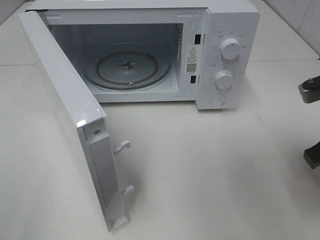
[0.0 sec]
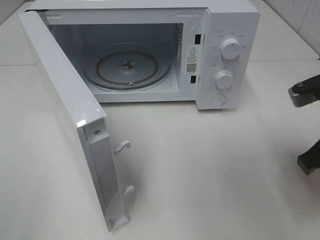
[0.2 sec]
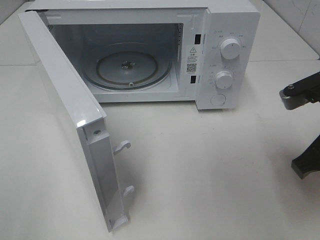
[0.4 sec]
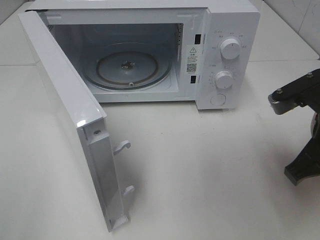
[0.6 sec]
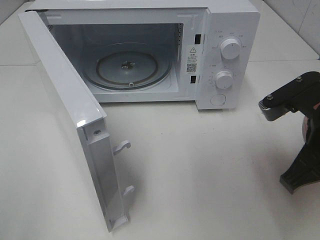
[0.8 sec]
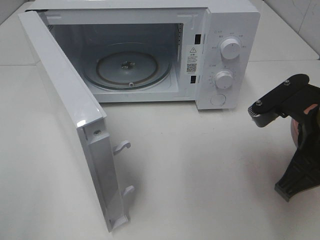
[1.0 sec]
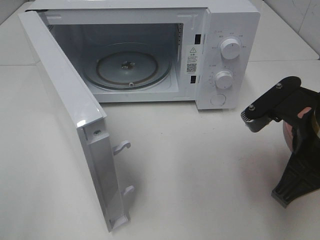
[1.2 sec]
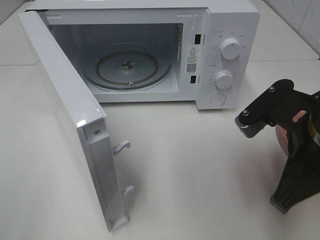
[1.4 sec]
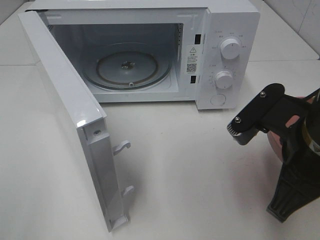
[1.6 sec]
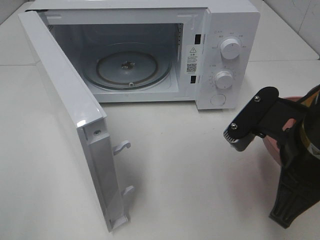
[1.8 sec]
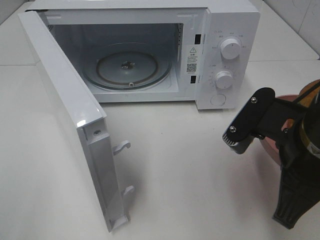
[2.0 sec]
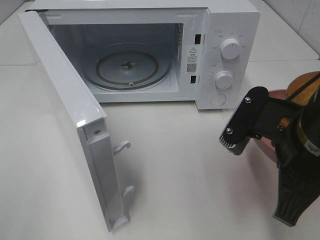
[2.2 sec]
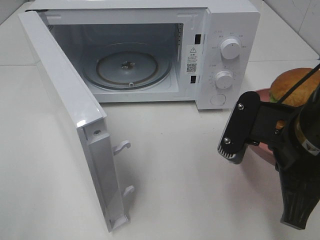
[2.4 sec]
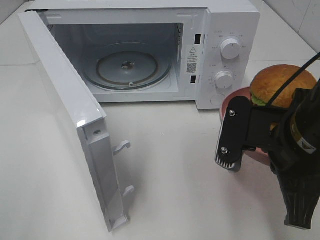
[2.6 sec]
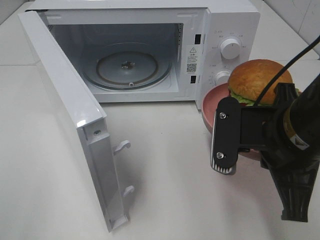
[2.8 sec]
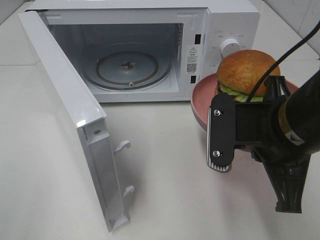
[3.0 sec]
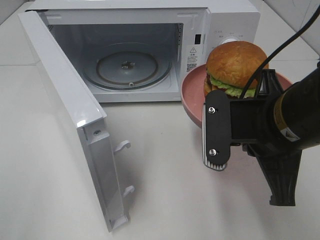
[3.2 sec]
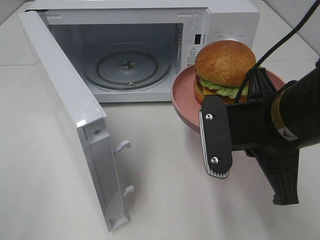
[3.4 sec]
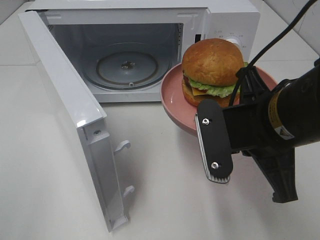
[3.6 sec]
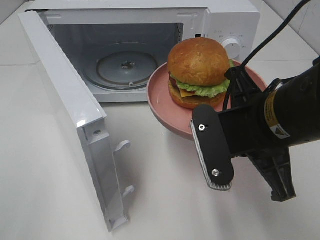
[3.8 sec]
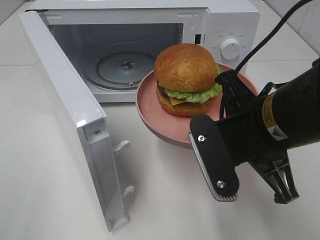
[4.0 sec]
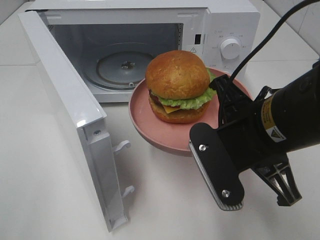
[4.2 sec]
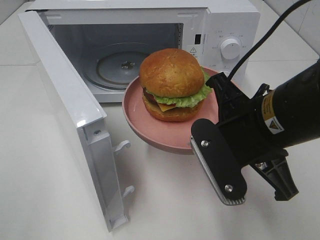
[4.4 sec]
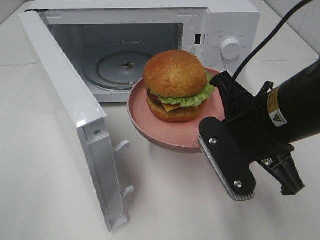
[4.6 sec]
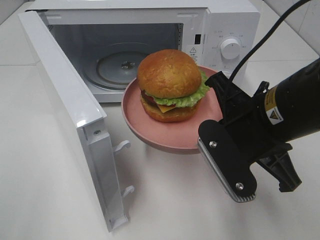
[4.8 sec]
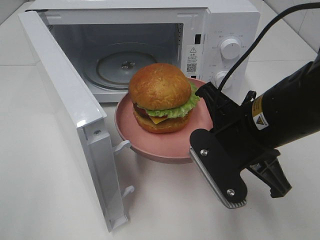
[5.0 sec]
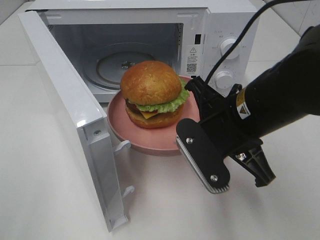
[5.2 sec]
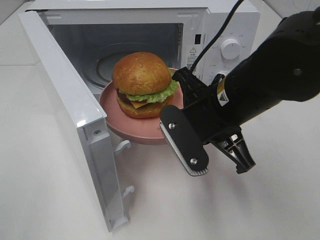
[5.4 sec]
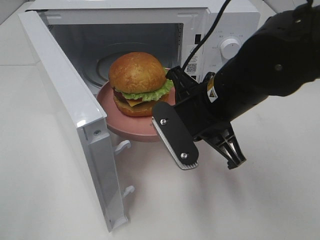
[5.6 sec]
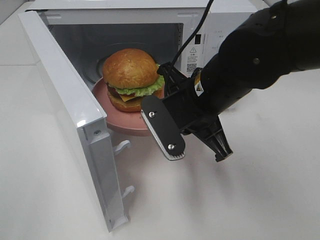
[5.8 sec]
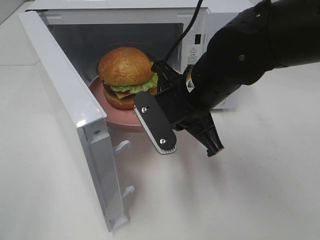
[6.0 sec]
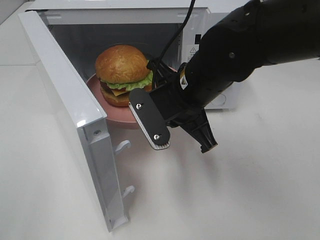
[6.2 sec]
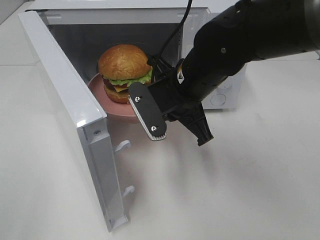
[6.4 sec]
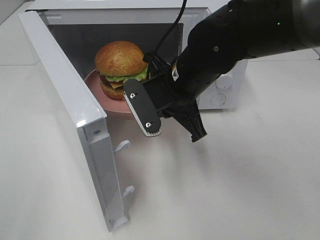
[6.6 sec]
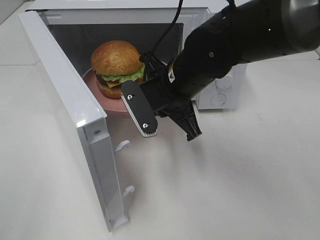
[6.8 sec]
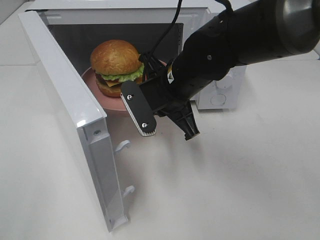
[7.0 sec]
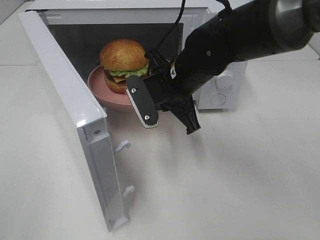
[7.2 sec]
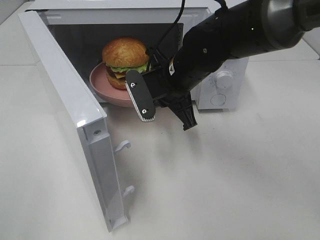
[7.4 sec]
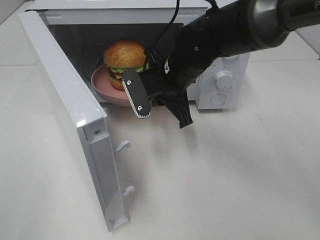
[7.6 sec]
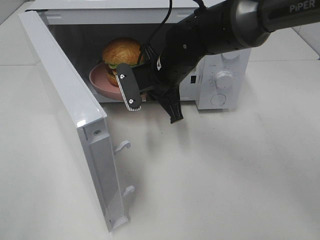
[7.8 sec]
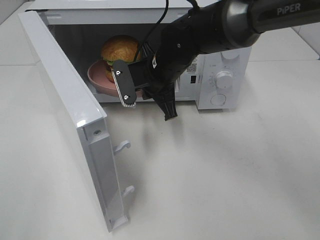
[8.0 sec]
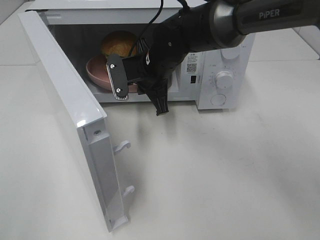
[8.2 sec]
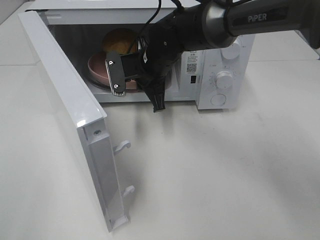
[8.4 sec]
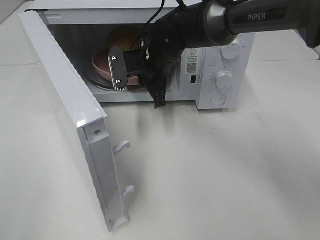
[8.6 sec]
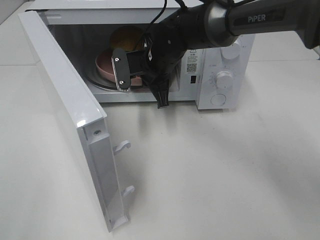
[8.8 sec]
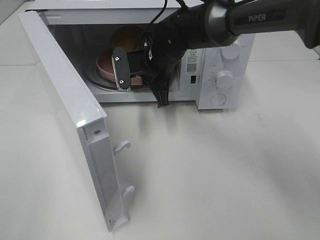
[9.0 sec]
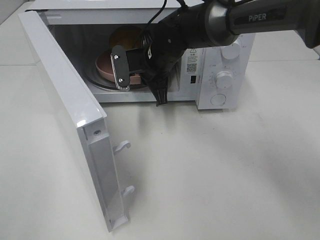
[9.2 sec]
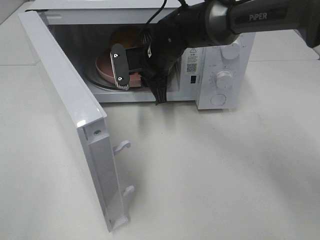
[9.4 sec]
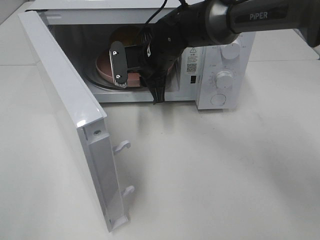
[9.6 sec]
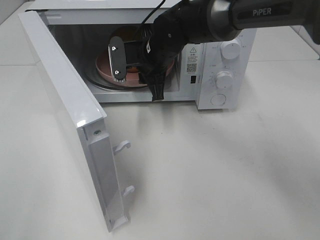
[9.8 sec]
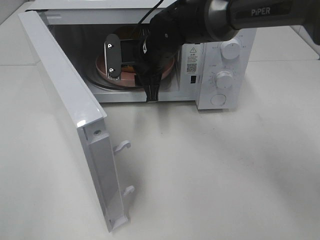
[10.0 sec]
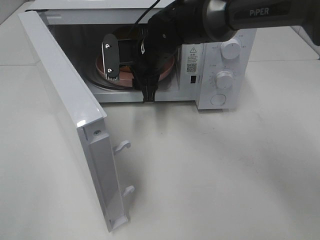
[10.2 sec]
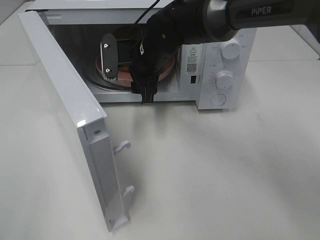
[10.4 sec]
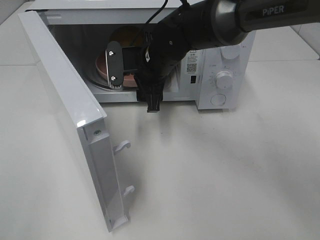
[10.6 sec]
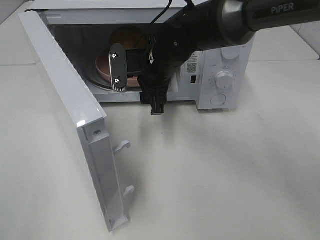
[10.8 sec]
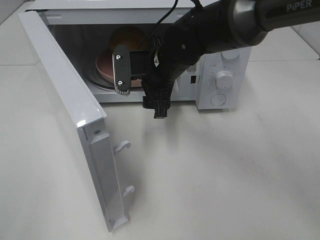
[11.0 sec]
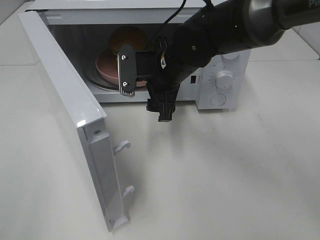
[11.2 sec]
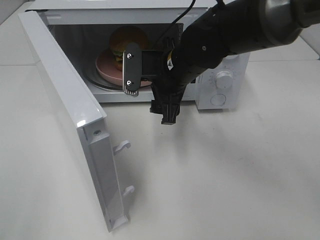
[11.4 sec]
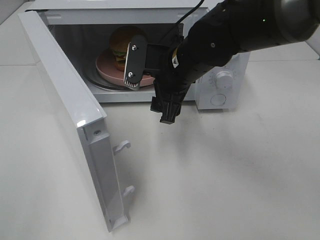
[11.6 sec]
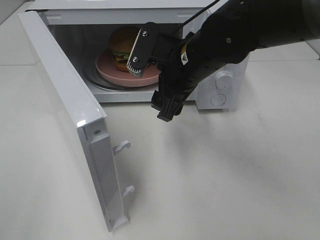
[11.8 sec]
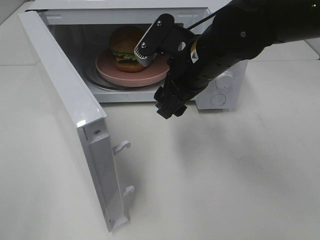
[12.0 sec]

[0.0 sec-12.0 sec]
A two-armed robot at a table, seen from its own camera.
Task of the whole recording: Heat the burger.
Step, 0.0 sec to 9.0 sec: Right hand: place the plate in the microwave.
0.0 sec to 1.6 sec: The right gripper moves to the left, about 10 cm.
4.4 sec to 6.0 sec: The right gripper goes about 10 cm forward and to the left.
6.0 sec to 7.6 sec: The right gripper is displaced forward by about 10 cm.
7.6 sec to 9.0 sec: The right gripper heads forward, covering approximately 5 cm.
9.0 sec to 10.4 sec: The right gripper opens up.
10.4 sec to 12.0 sec: The right gripper is displaced backward and to the right by some 10 cm.

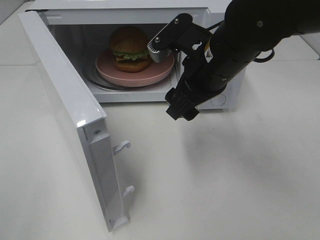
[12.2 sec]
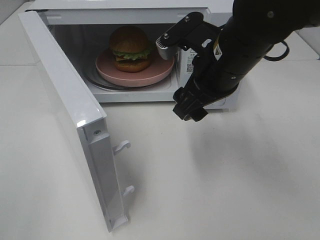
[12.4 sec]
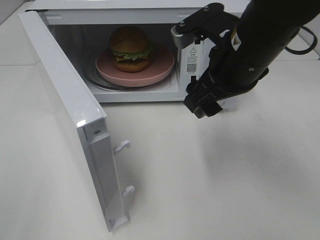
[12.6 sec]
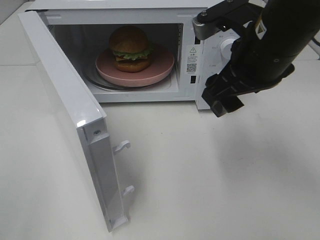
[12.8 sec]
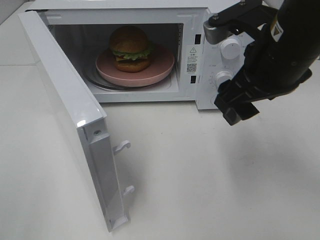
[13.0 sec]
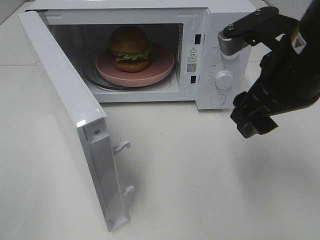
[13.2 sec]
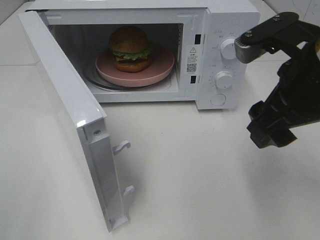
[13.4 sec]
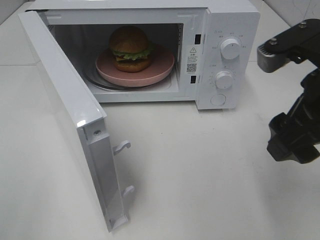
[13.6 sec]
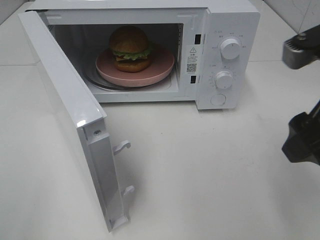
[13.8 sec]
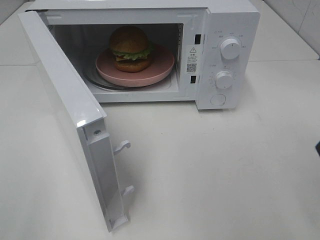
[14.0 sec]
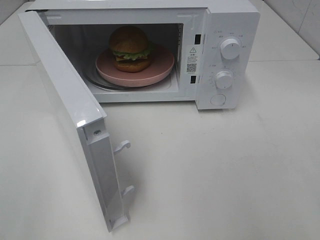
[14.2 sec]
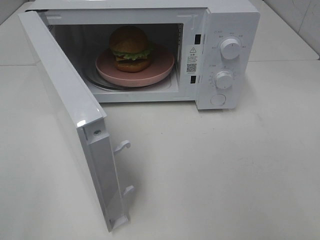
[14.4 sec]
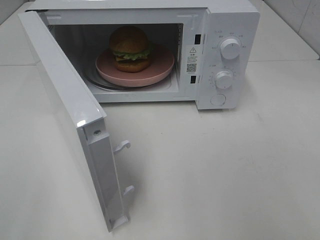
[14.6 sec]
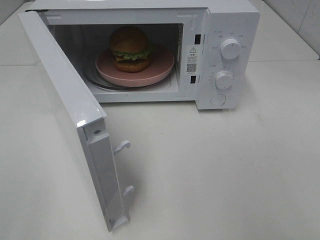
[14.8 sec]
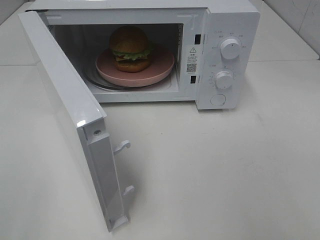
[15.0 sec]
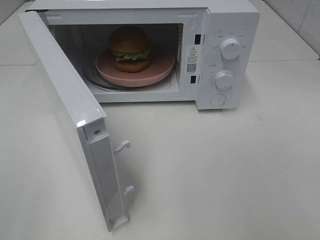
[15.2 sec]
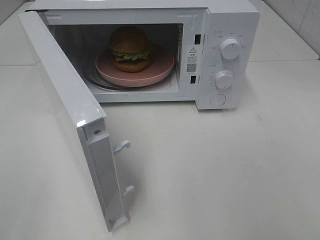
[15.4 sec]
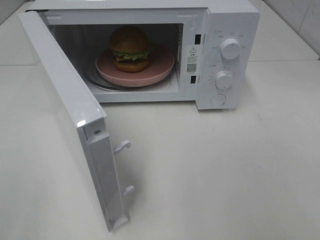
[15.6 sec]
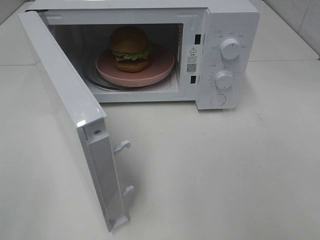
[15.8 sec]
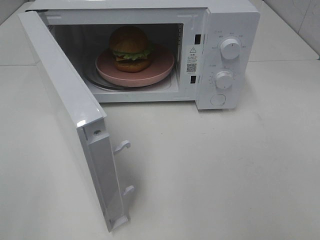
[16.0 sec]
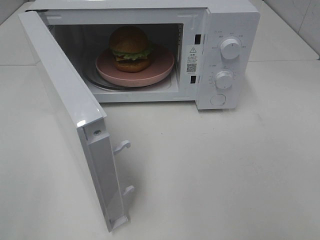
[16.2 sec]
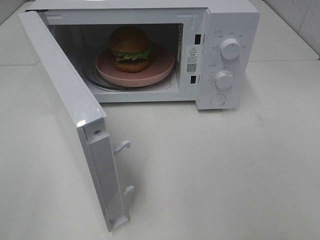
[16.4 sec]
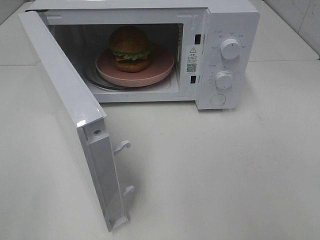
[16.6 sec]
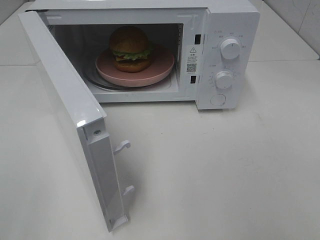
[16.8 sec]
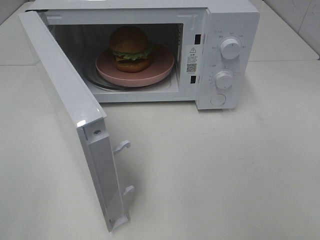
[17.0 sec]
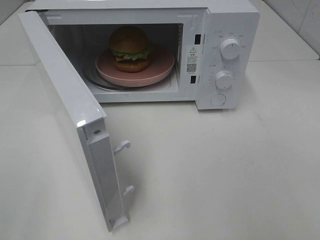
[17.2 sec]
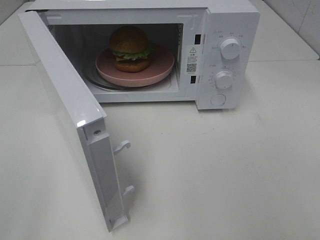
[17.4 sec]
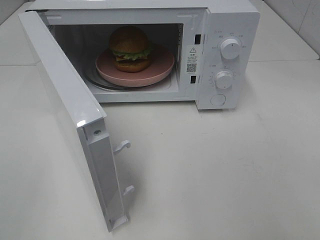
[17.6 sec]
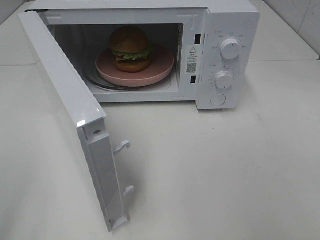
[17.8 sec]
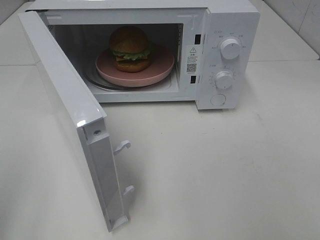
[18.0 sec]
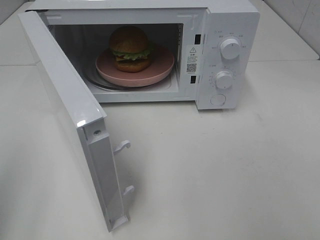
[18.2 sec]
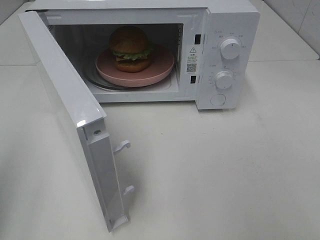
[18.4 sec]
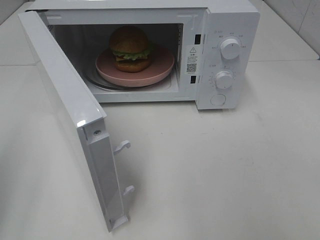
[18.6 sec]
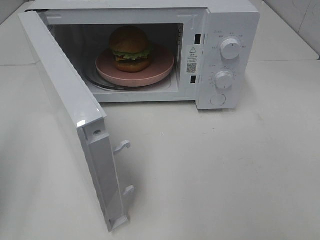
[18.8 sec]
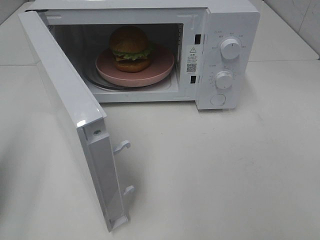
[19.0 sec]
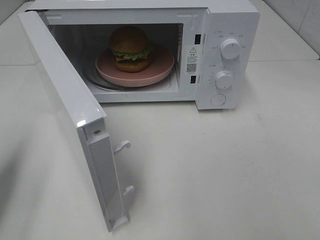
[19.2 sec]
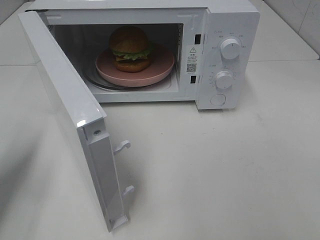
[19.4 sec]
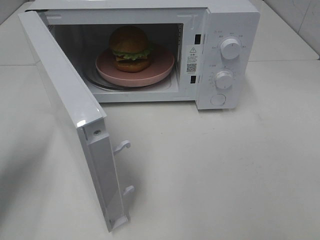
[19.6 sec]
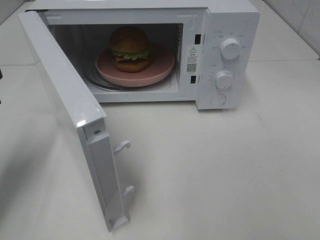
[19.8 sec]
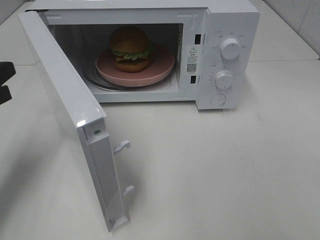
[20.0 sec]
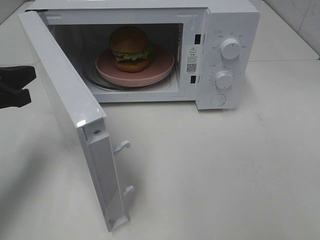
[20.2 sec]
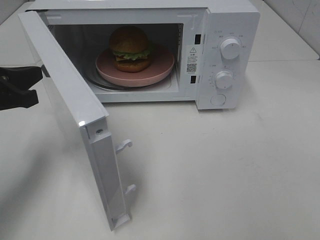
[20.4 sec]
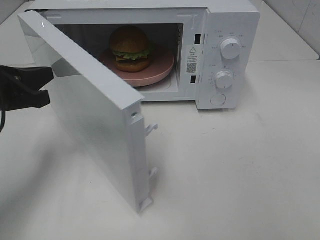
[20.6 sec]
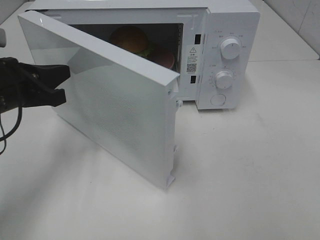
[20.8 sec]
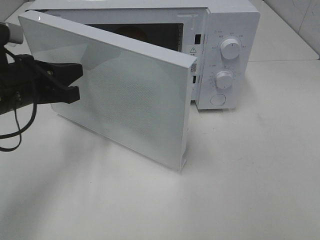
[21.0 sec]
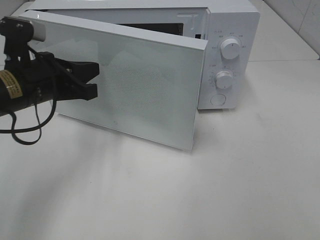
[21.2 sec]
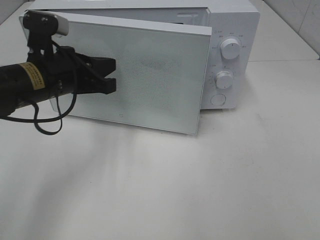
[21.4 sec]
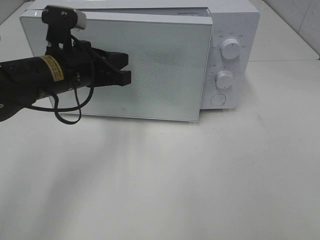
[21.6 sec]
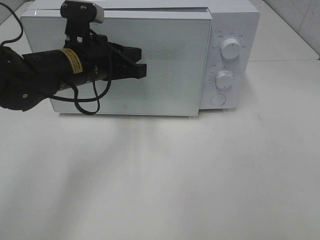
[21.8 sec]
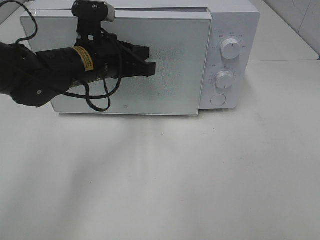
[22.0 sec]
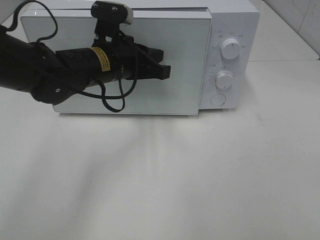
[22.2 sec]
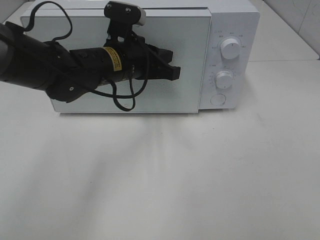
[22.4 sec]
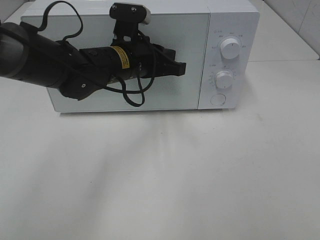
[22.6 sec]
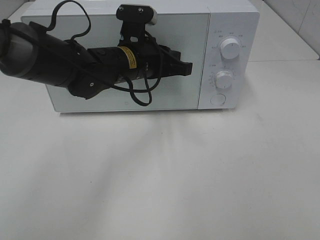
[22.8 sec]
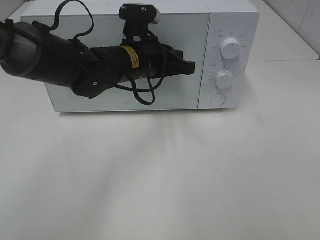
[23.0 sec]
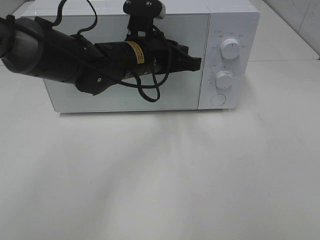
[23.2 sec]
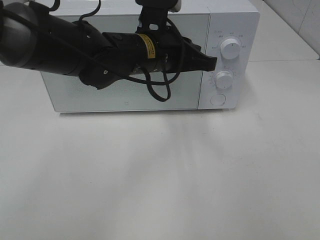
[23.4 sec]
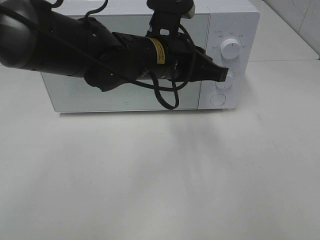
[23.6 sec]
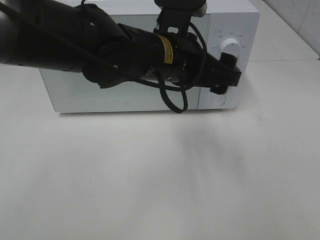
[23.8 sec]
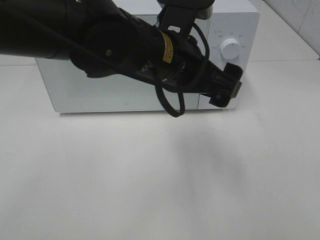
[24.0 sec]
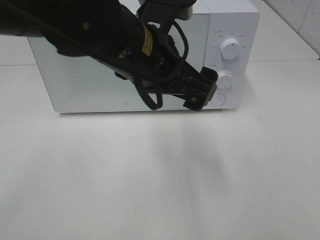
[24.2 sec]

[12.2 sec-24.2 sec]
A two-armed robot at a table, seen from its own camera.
Task of the whole recording: Heat the burger.
Step, 12.2 sec to 23.2 sec: Left hand: close the microwave door.
12.2 sec to 13.8 sec: The right gripper travels to the right, backward and upward by approximately 20 cm.
13.8 sec to 15.2 sec: The right gripper heads backward and to the right, covering about 20 cm.
15.2 sec to 16.6 sec: Both grippers stay about where they are.
18.2 sec to 19.8 sec: The left gripper travels forward and downward by some 20 cm.
19.8 sec to 21.2 sec: The left gripper heads to the right, covering about 15 cm.
21.2 sec to 22.6 sec: The left gripper shifts roughly 15 cm to the right and forward.
22.6 sec to 24.2 sec: The left gripper is displaced backward and upward by roughly 15 cm, and opens its fingers.
